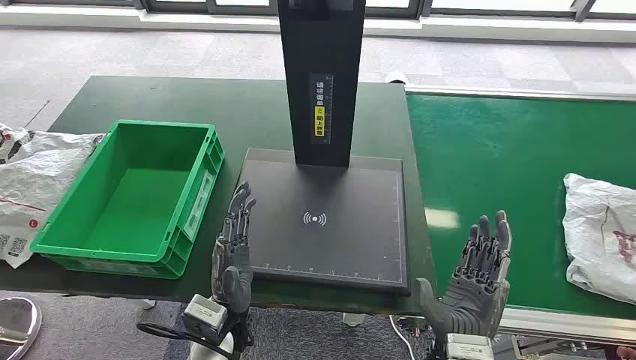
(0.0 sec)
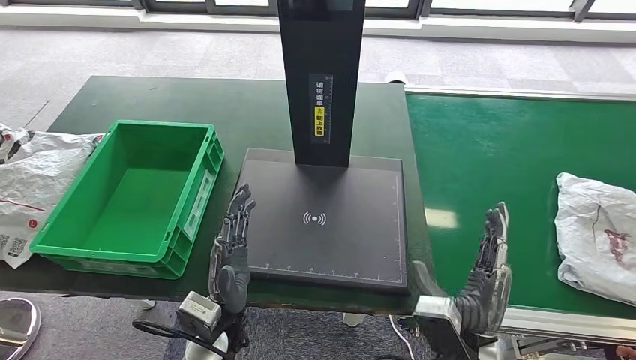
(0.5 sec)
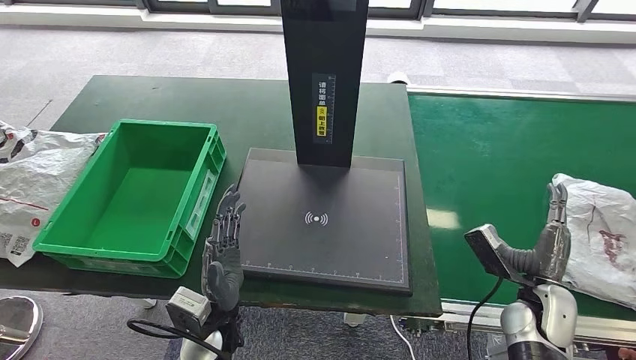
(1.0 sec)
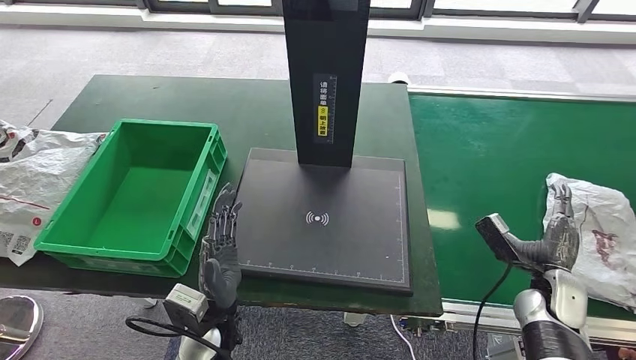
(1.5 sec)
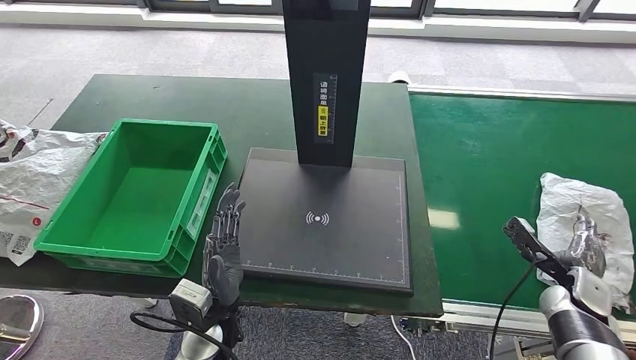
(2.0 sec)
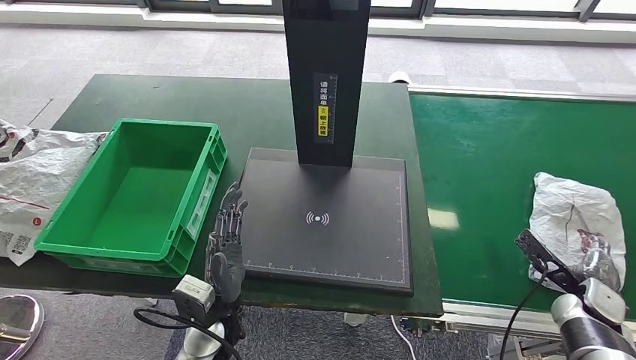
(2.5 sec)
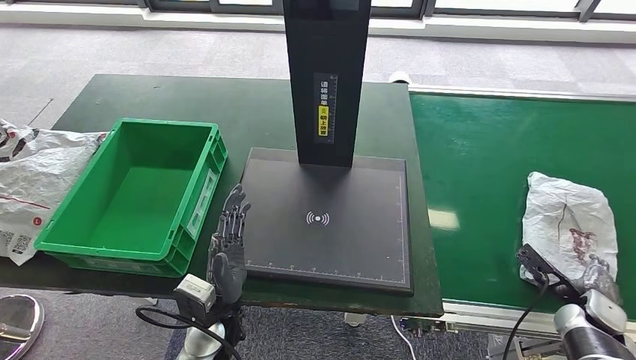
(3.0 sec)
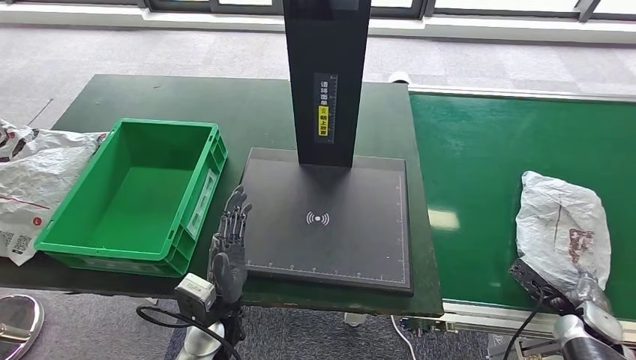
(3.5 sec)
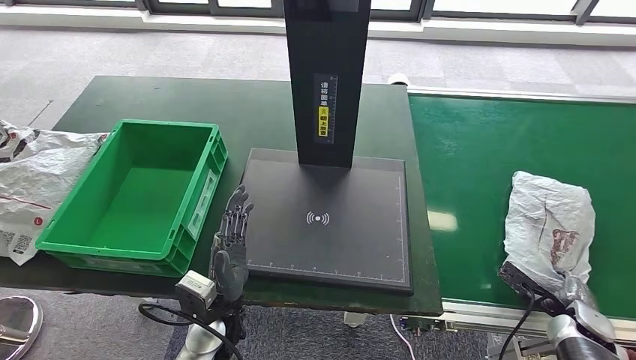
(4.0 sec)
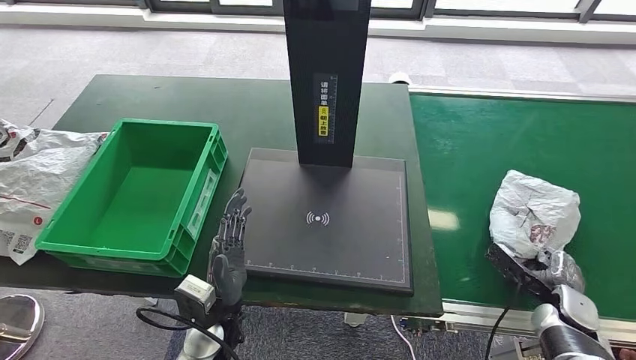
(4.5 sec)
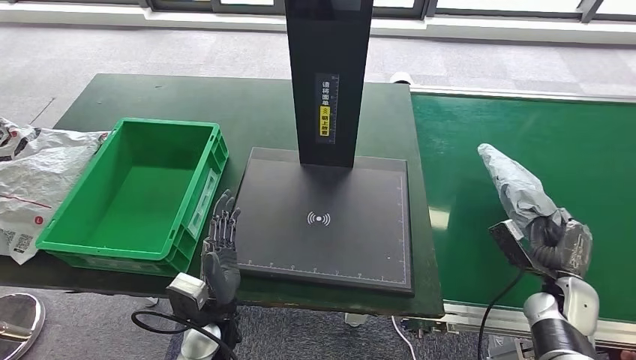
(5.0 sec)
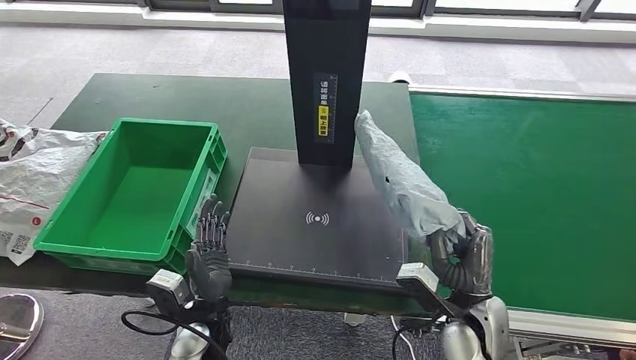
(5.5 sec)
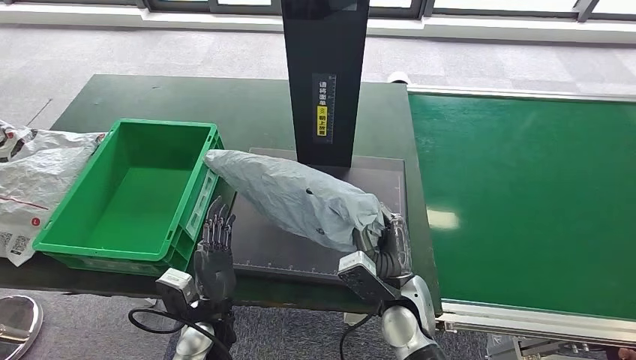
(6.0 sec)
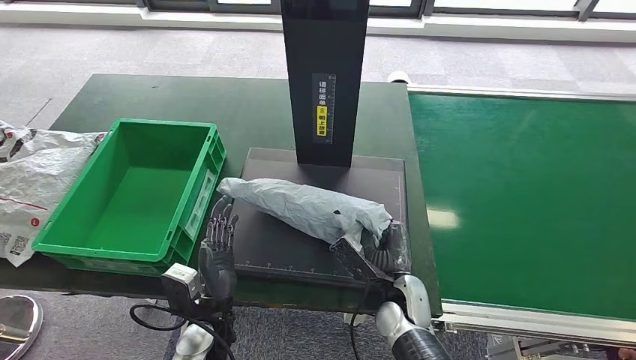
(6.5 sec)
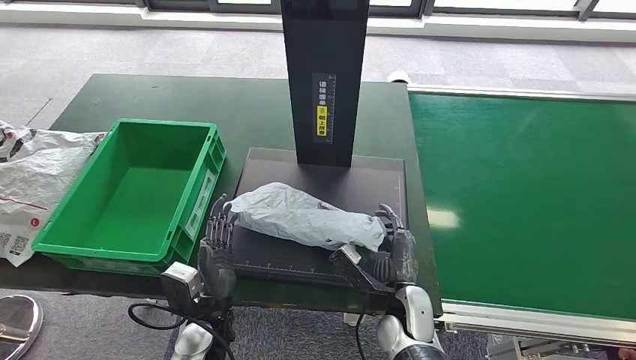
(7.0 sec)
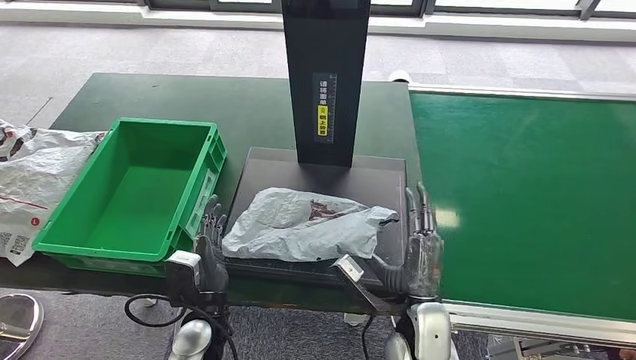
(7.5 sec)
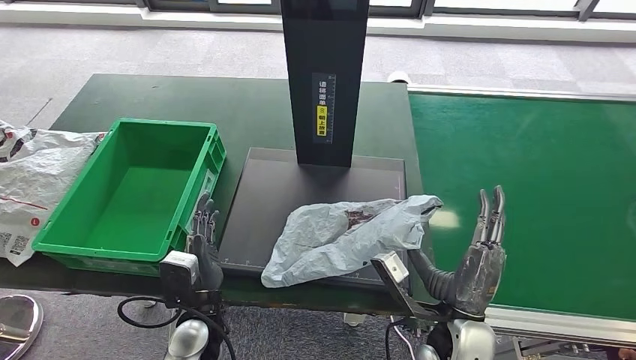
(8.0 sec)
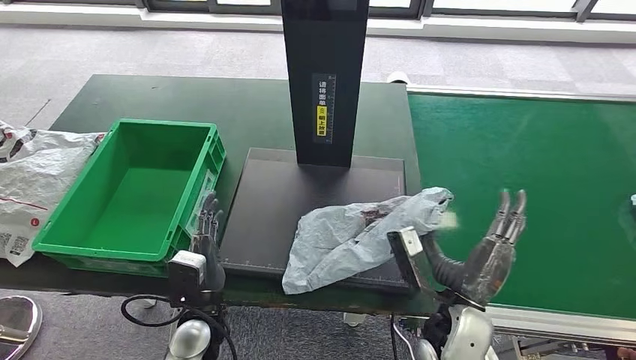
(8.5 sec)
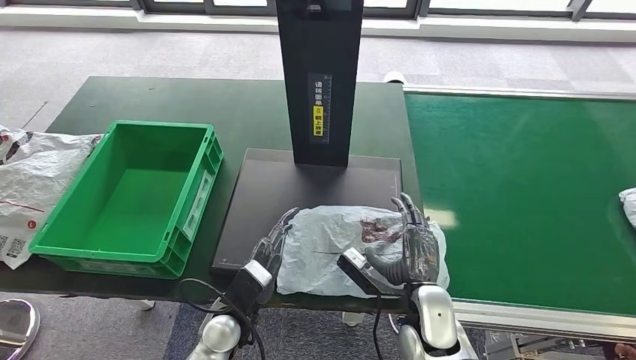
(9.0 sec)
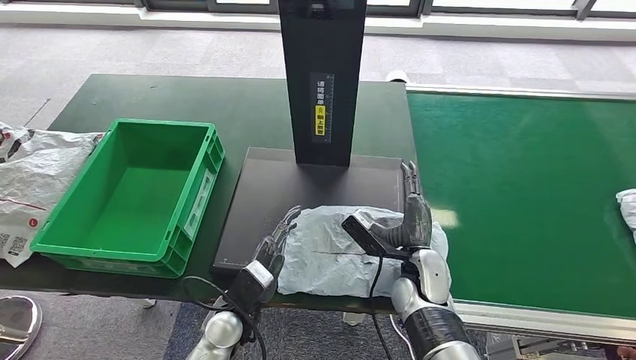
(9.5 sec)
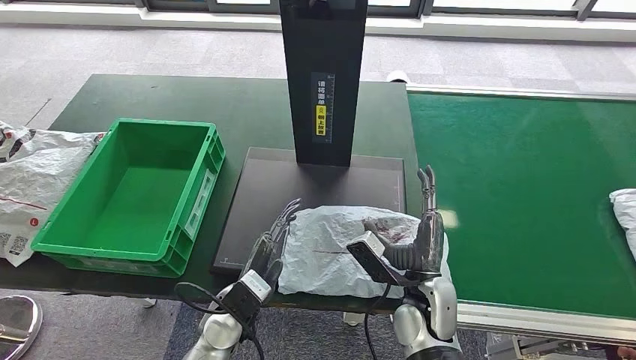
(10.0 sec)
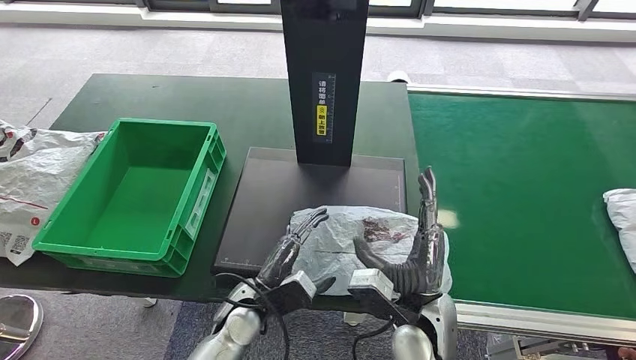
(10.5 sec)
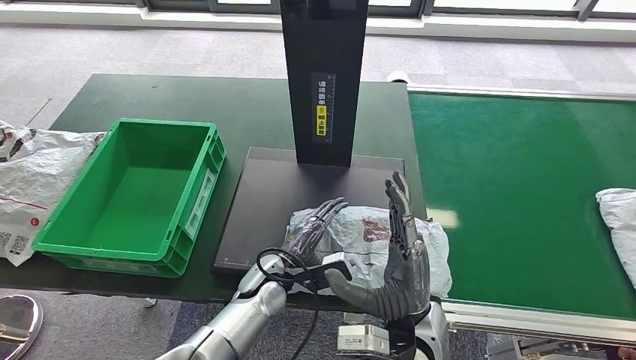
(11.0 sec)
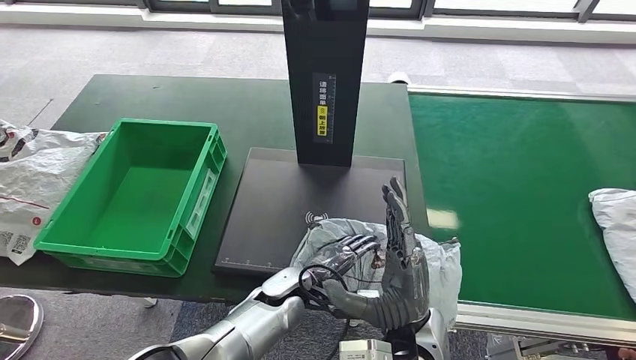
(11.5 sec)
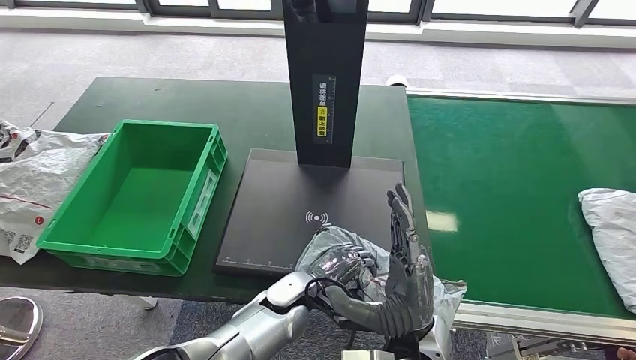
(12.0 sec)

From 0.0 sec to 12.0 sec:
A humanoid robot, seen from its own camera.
Step, from 0.0 sec to 5.0 sec: Take the parcel off the conveyor belt.
Step, from 5.5 sec to 7.5 sec: Place the parcel onto the inbound machine.
From 2.0 sec to 4.0 sec: The right hand goes about 5 cm backward.
From 6.0 sec to 8.0 sec: The right hand travels to the right by roughly 5 cm.
From 8.0 sec to 10.0 sec: The right hand goes about 5 cm forward.

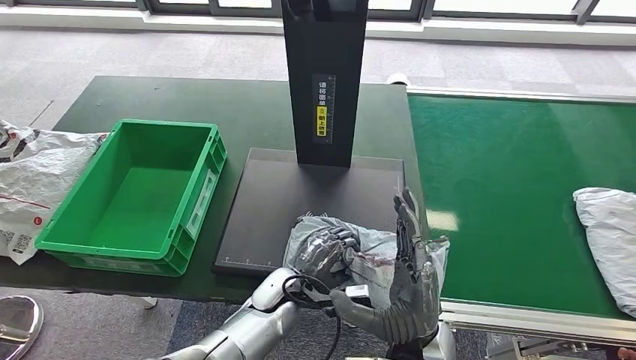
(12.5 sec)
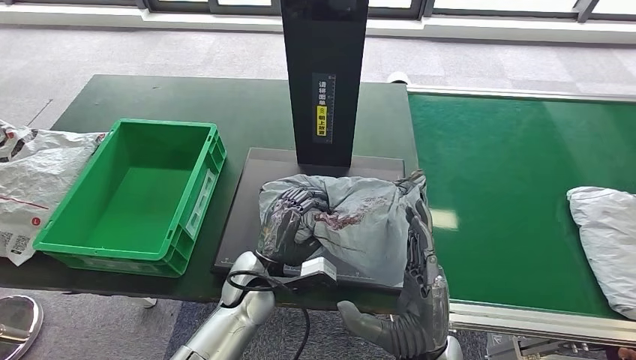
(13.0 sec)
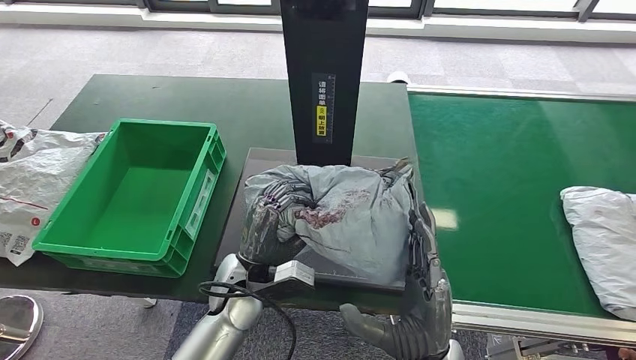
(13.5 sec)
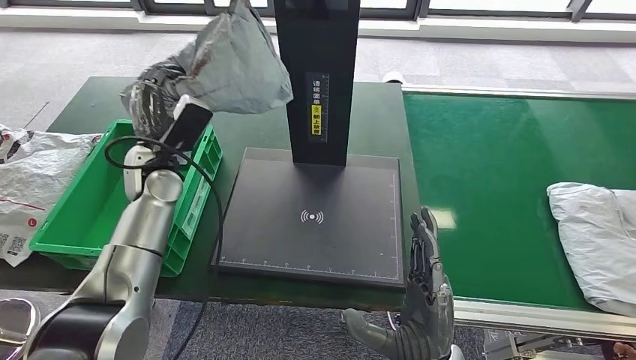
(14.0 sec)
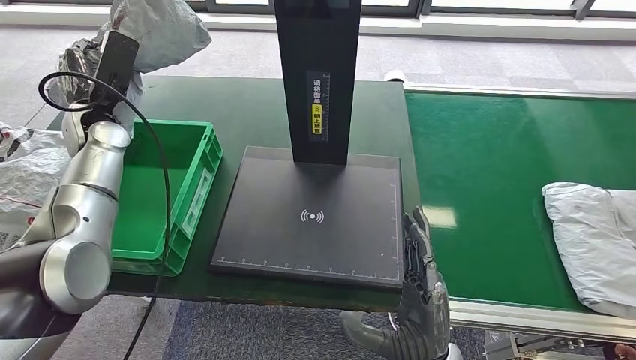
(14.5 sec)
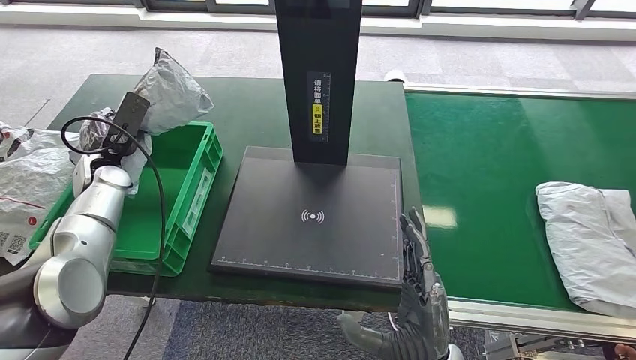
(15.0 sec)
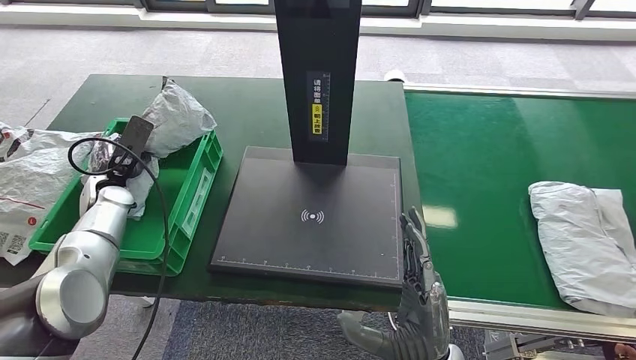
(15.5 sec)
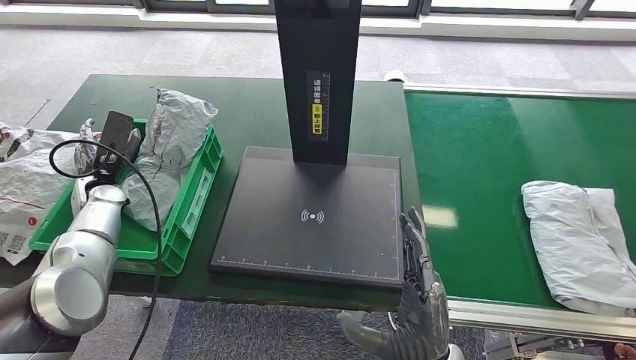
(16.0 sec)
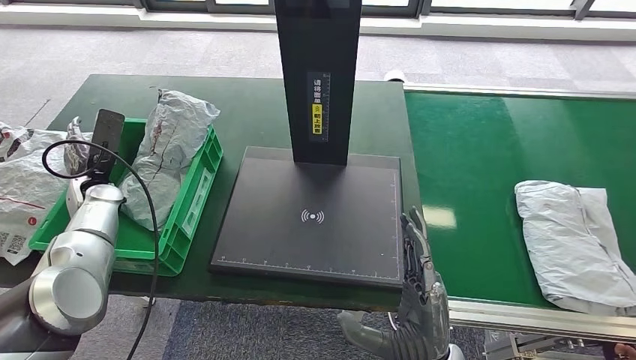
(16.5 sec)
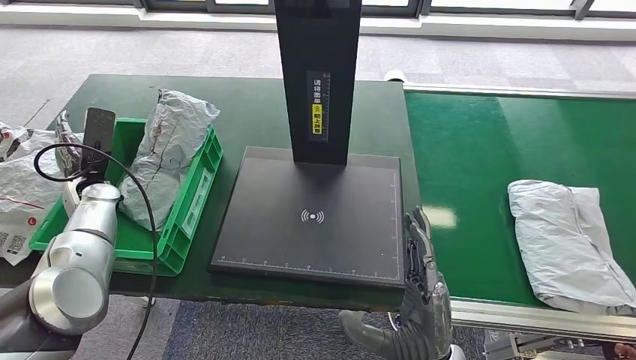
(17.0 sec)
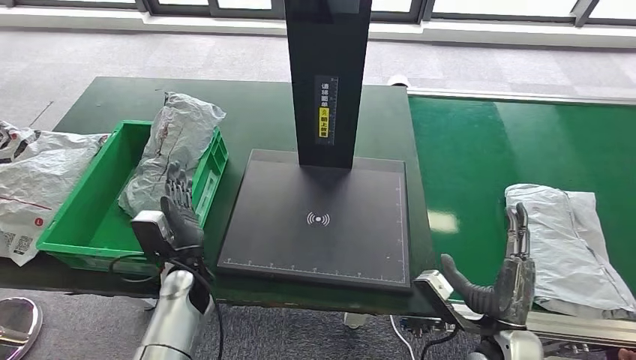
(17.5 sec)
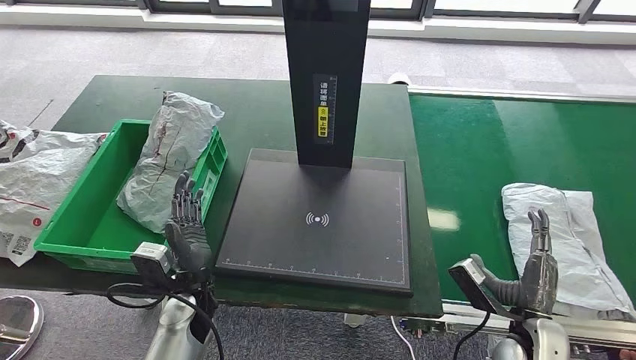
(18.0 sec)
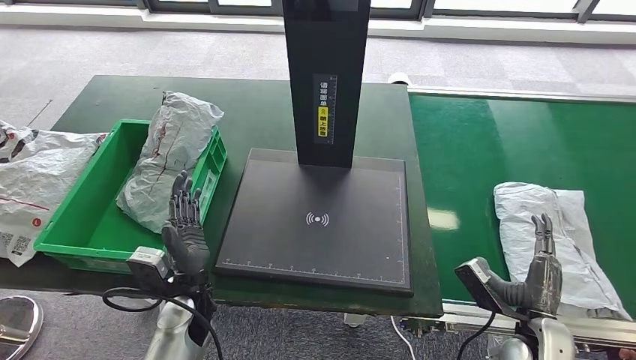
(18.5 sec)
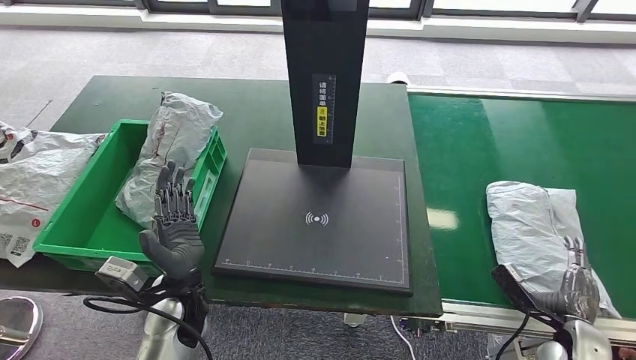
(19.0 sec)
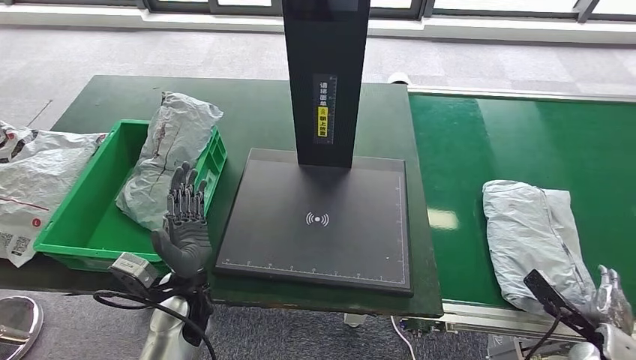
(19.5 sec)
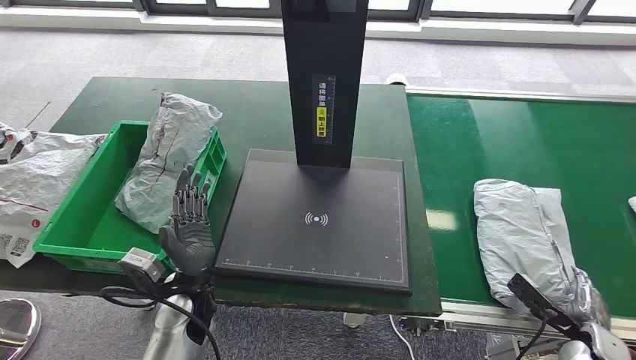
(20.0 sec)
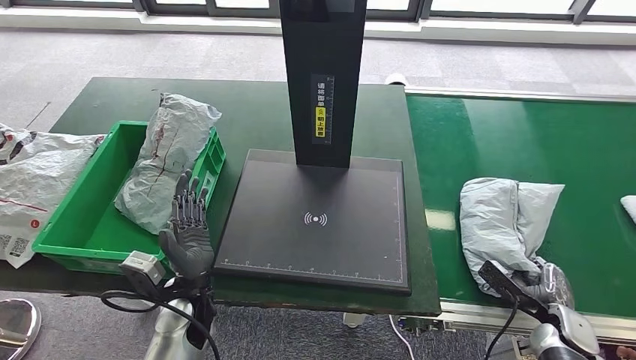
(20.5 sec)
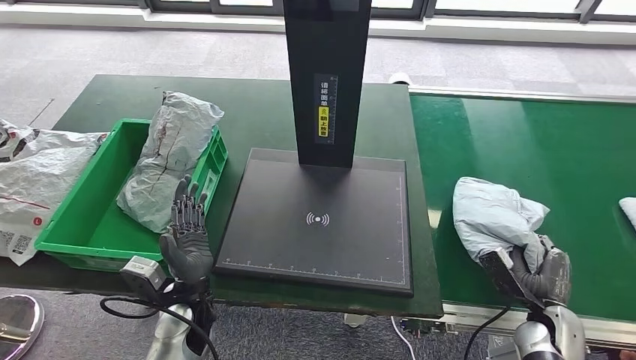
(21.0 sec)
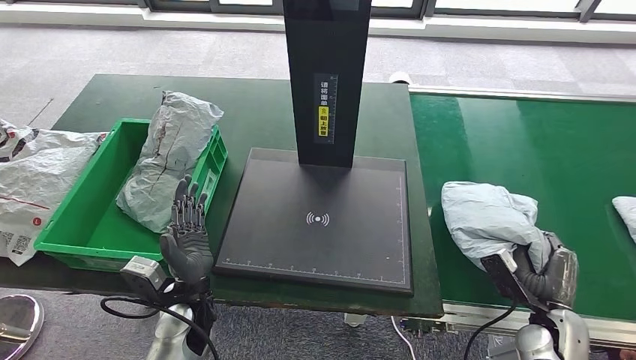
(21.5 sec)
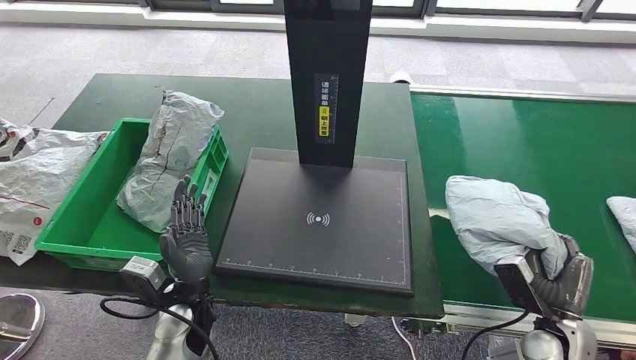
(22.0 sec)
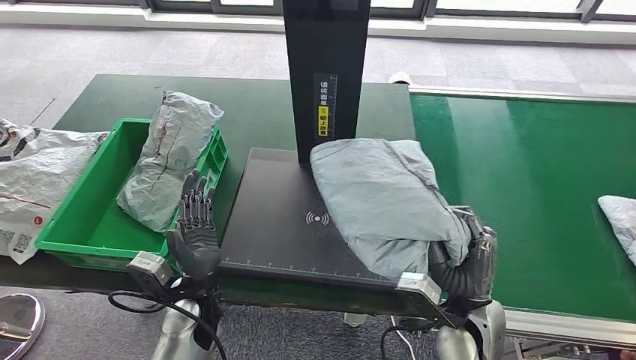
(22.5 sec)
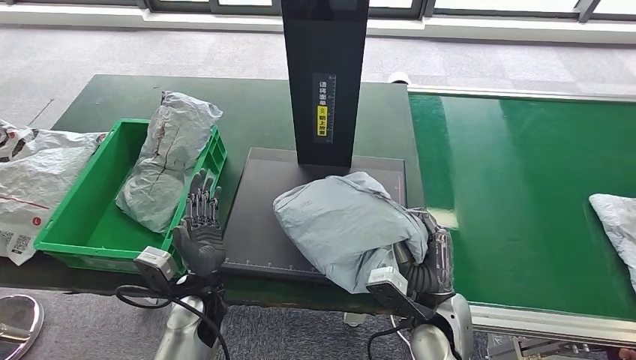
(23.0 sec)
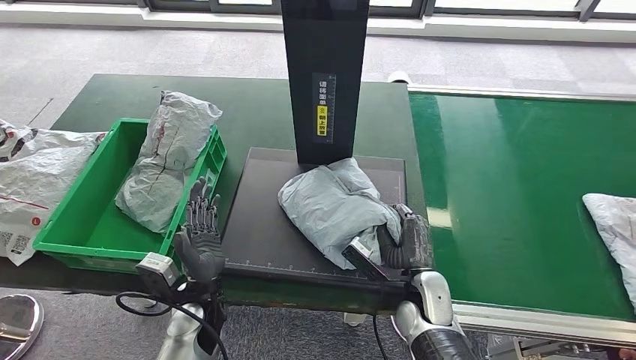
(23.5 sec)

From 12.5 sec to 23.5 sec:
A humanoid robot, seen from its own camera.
Step, from 14.0 sec to 16.5 sec: Put the parcel inside the courier box.
Step, from 17.5 sec to 21.0 sec: Pick up the parcel from the conveyor belt.
From 18.0 sec to 20.0 sec: The right hand moves to the right, some 15 cm.
